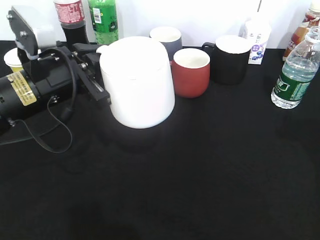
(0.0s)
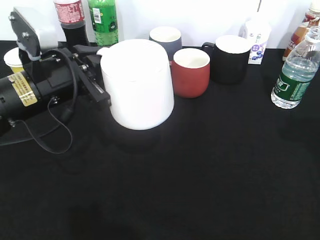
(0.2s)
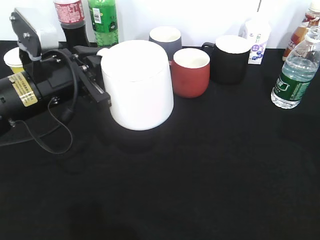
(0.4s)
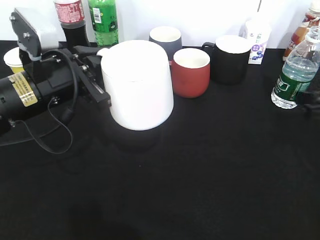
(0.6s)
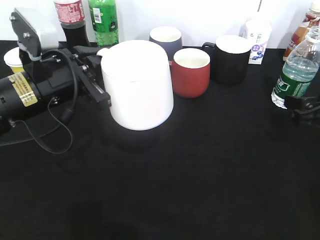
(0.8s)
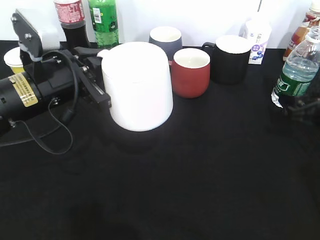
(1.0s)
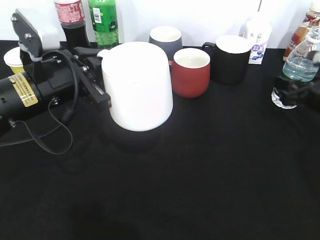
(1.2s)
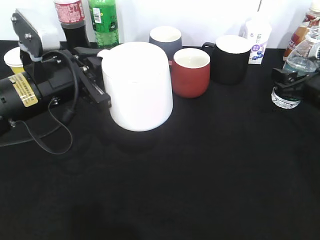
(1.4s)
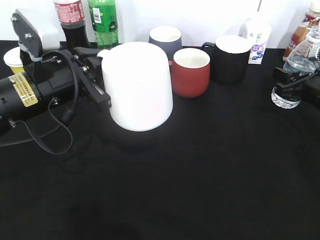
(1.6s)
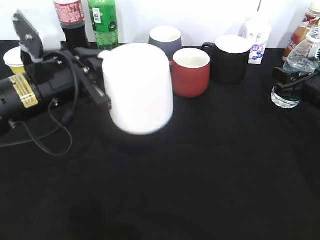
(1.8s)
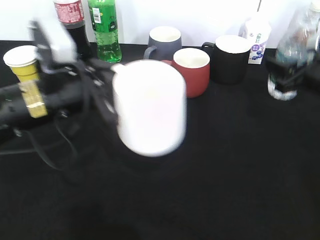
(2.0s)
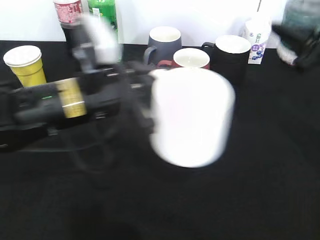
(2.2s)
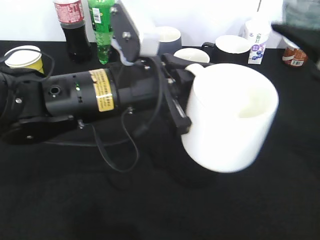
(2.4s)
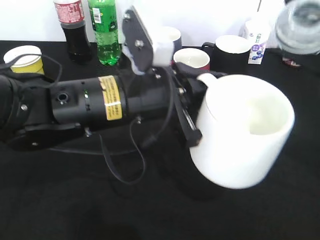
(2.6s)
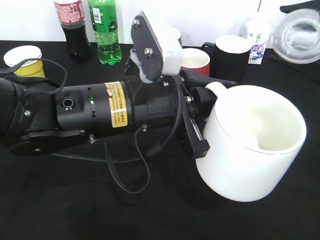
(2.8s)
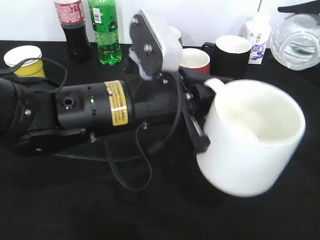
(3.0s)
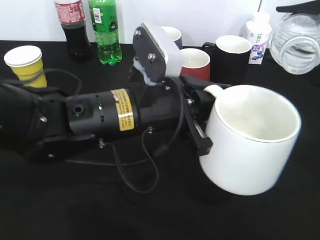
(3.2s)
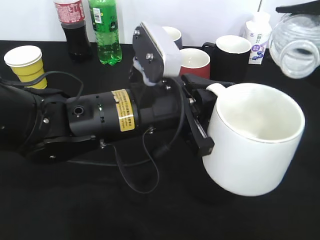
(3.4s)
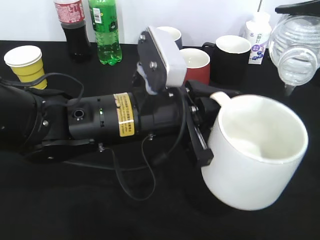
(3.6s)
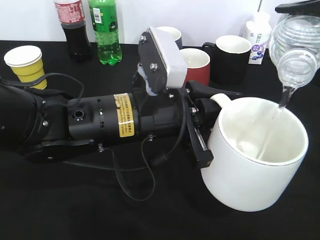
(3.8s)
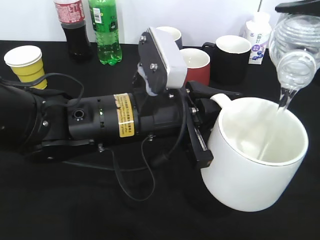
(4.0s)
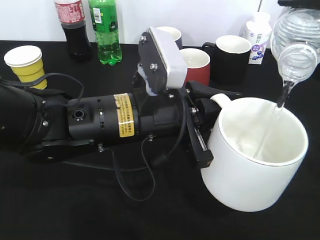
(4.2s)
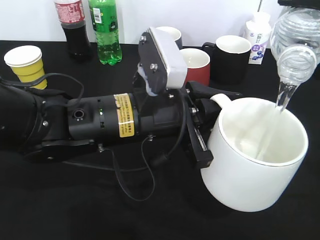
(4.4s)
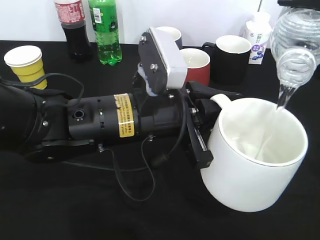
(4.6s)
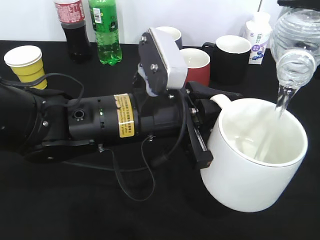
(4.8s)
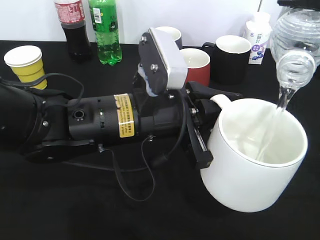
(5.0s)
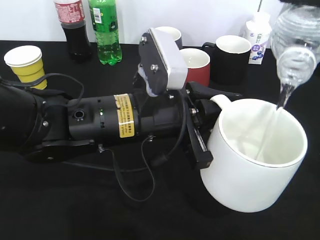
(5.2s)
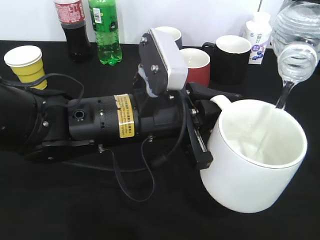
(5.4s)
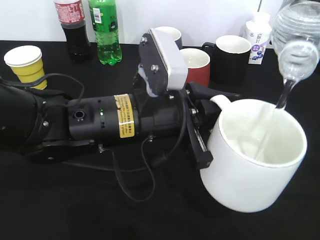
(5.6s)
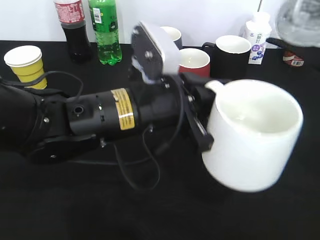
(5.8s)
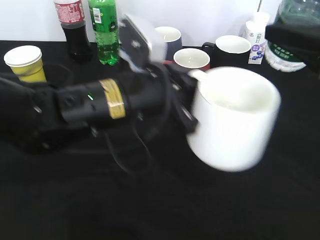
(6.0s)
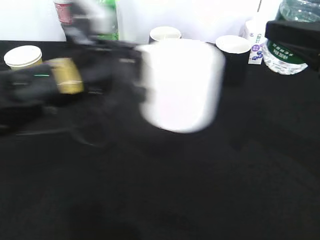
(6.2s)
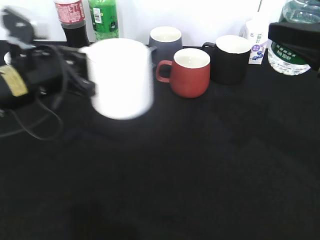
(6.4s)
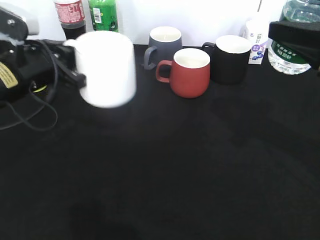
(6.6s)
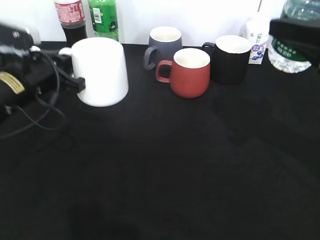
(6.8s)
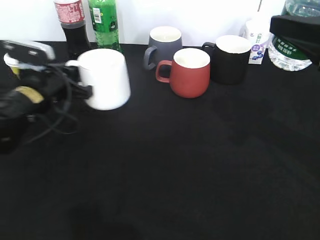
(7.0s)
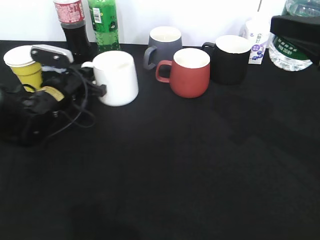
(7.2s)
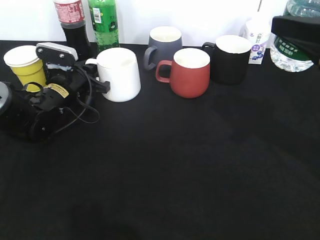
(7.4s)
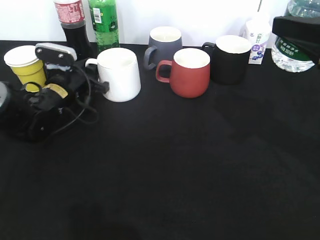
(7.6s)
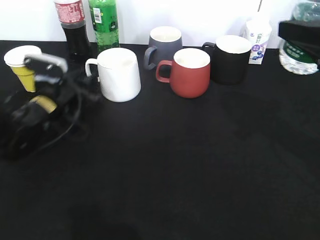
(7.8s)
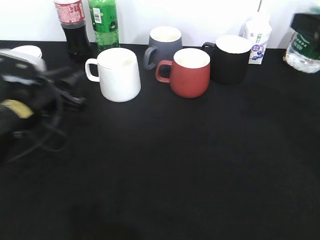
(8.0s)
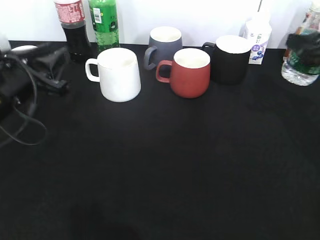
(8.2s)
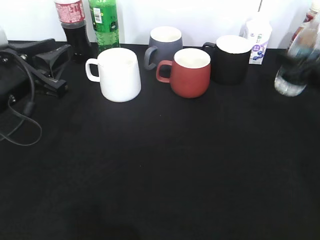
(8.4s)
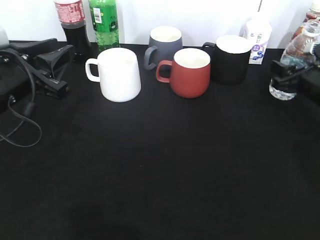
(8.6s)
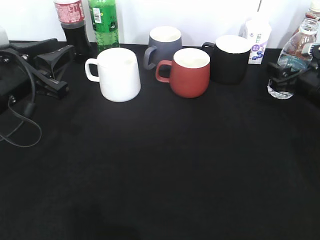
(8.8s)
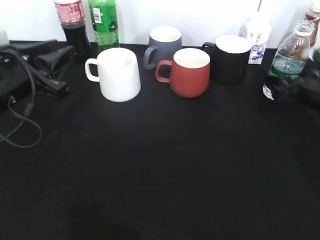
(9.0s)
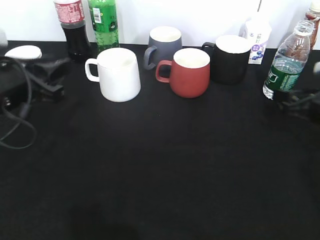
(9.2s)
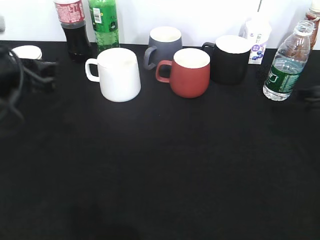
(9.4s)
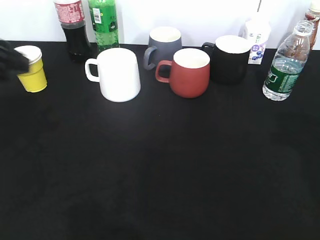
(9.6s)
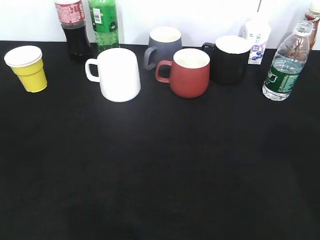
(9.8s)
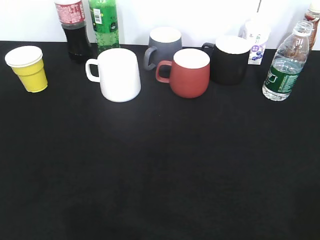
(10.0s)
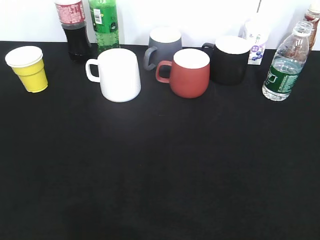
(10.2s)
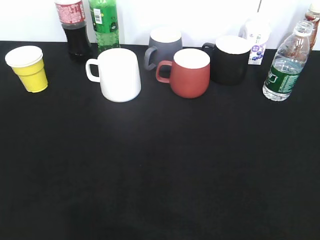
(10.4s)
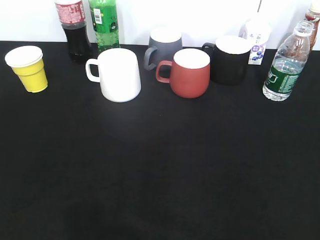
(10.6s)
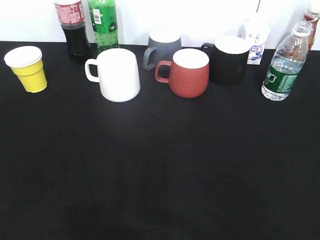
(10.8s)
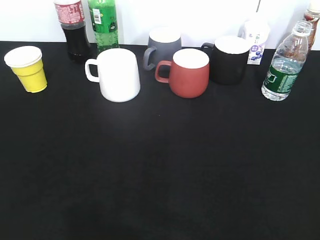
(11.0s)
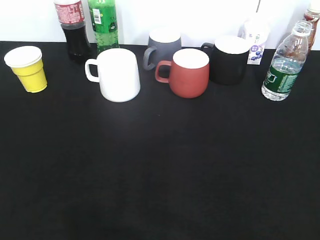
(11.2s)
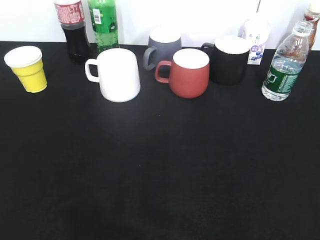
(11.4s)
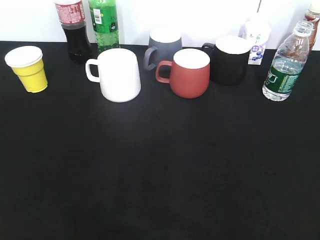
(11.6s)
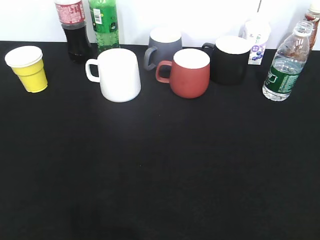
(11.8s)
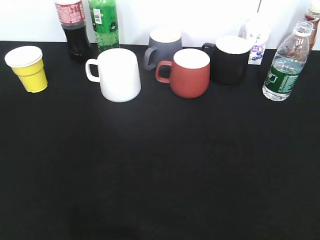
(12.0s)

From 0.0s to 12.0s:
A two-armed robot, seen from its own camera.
Step, from 0.0s to 1.6s: Grasp the bottle with water with right gripper.
Step, from 1.8s to 6.0s: Pour the water from bottle to cup with right gripper.
Step, from 6.2s to 7.8s: Place the white cup on the table with left gripper.
Step, from 8.0s to 9.0s: Place the water bottle on the table with right gripper.
From 0.0s to 1.6s: The right gripper shifts approximately 20 cm downward and forward, and closes up.
From 1.6s to 3.0s: The right gripper heads upward and backward, covering some 20 cm; the left gripper travels to the right and backward by approximately 15 cm.
From 6.0s to 7.6s: The left gripper is displaced forward, to the left and downward by roughly 25 cm, and opens up.
From 7.6s to 9.0s: The right gripper travels downward and forward by roughly 20 cm, and opens. The left gripper is displaced backward and upward by about 15 cm.
From 9.0s to 10.4s: The left gripper shifts roughly 25 cm backward and to the left, while the right gripper is displaced backward and upward by approximately 40 cm.

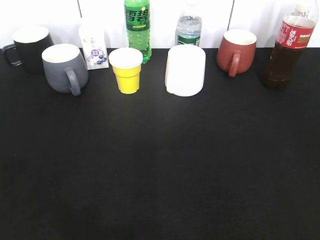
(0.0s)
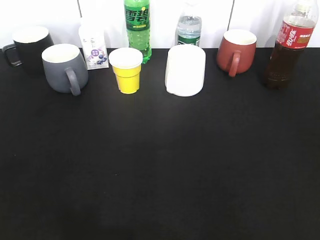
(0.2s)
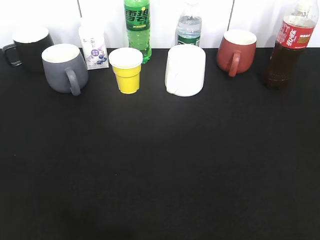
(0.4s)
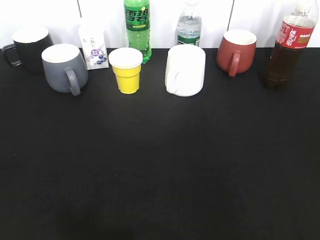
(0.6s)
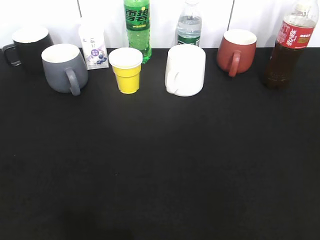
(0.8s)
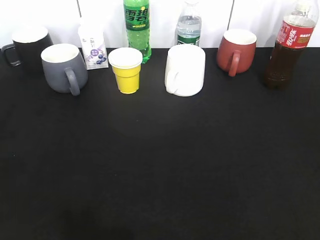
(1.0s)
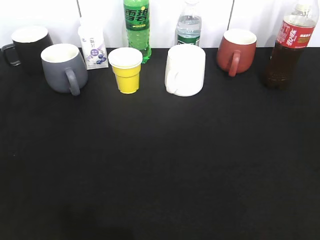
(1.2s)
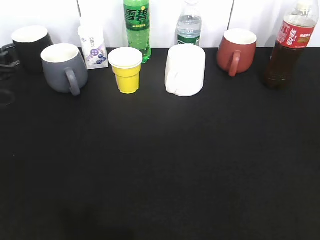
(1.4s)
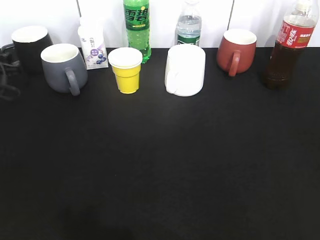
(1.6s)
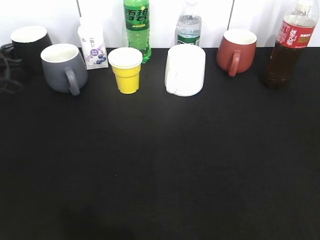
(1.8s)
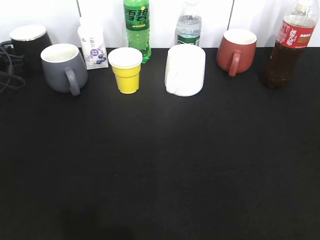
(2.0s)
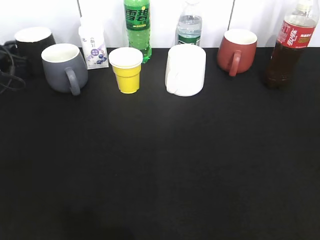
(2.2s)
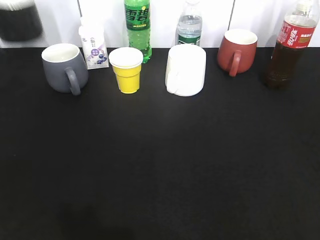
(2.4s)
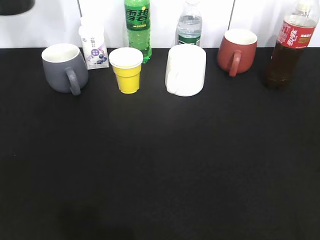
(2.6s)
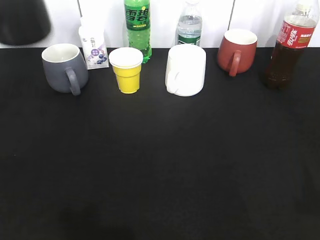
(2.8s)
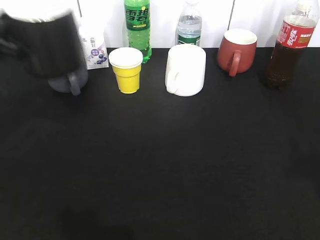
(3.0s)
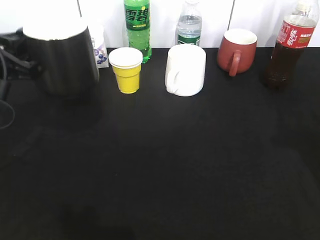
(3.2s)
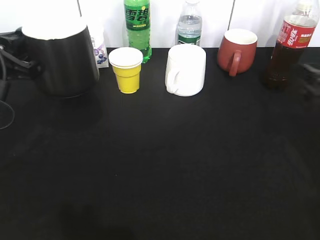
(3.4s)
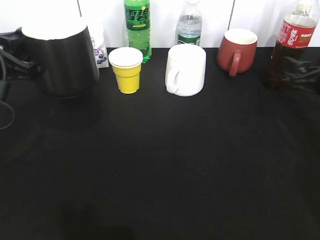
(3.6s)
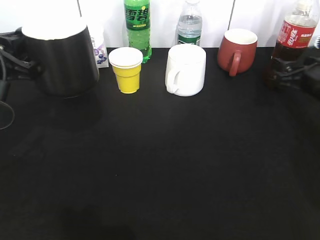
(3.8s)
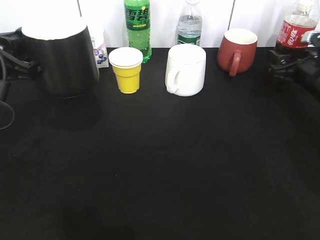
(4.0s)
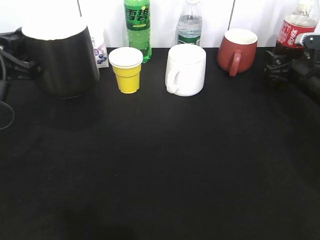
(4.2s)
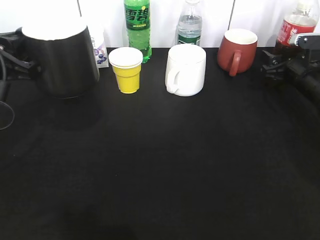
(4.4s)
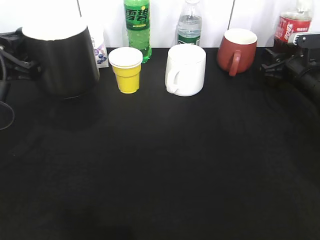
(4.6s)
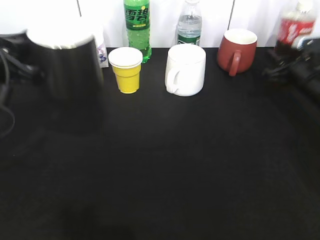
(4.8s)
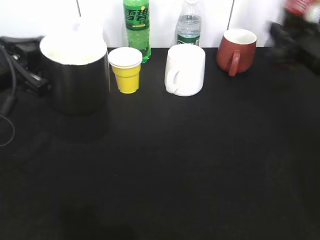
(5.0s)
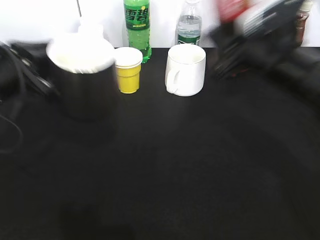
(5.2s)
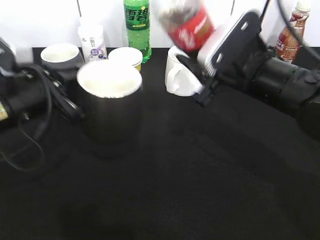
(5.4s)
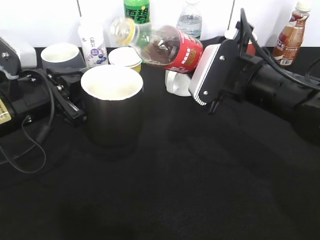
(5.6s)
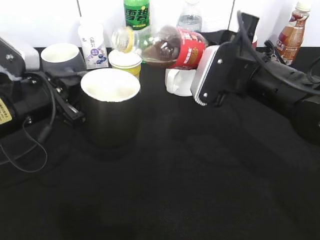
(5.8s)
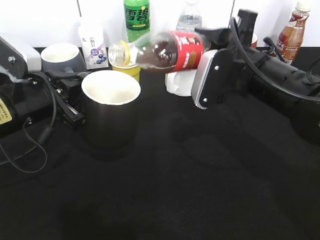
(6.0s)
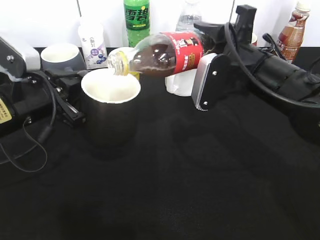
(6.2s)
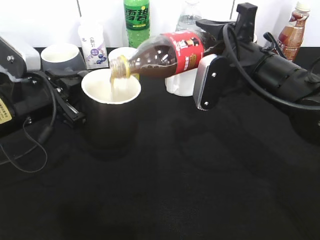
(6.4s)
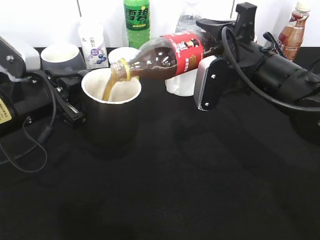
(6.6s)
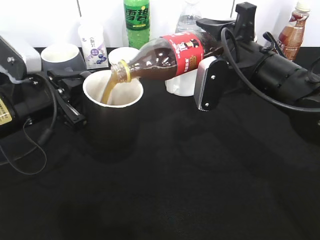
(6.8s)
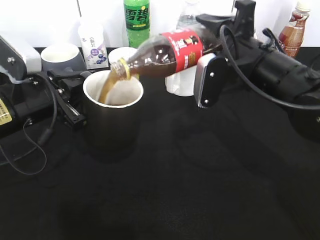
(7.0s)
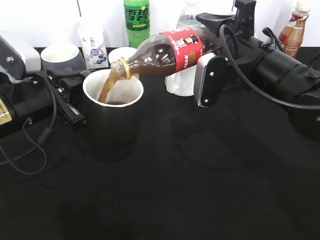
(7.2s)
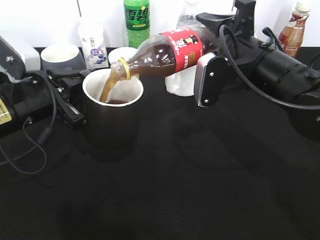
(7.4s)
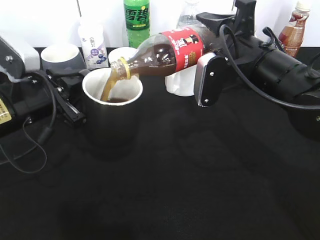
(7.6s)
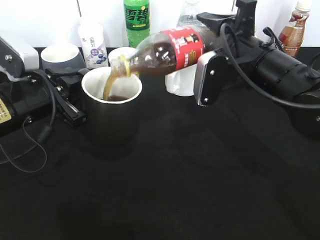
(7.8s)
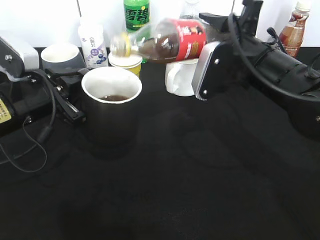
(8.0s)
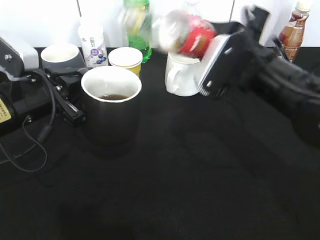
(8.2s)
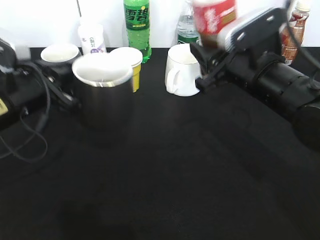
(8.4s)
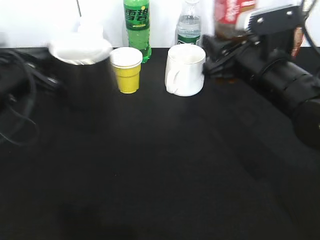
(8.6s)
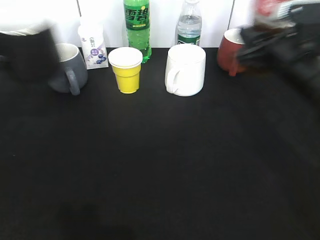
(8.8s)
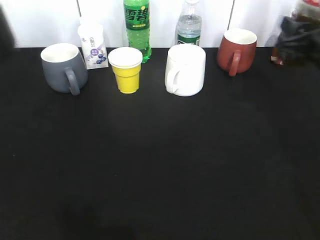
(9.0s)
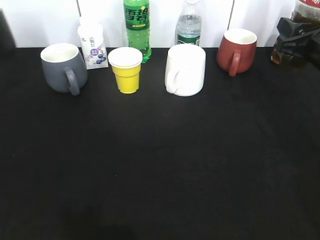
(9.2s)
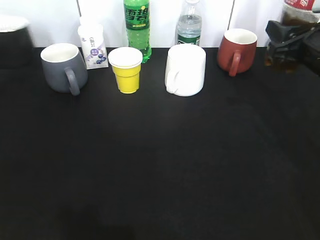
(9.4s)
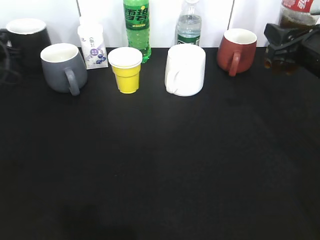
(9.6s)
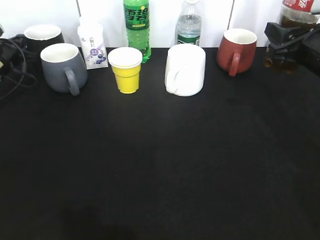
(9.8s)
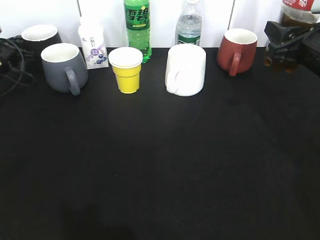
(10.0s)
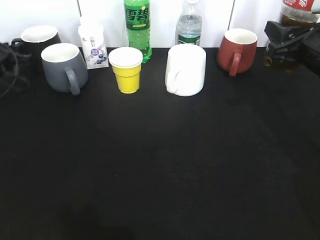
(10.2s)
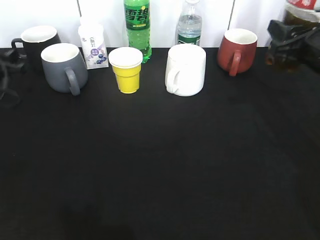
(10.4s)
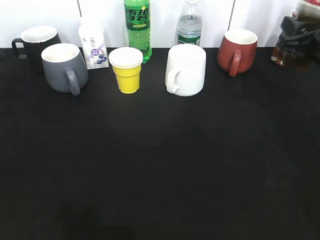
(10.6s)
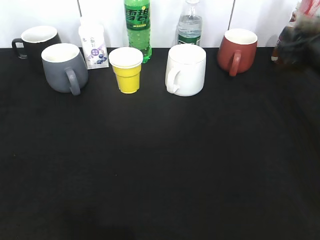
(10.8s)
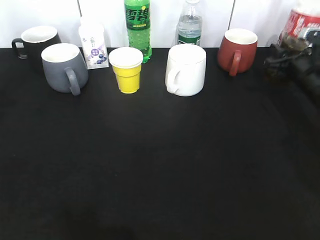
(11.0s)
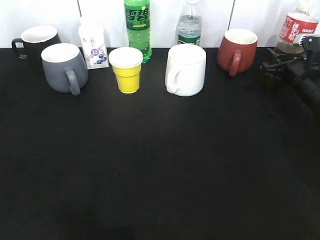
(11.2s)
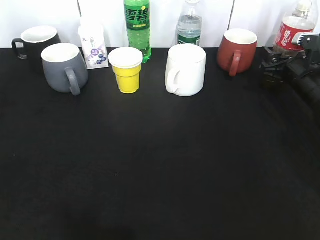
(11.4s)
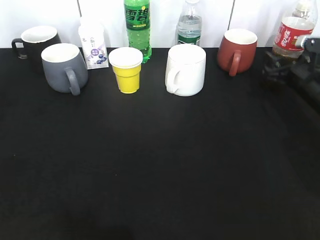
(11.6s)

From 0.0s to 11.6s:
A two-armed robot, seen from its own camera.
Step, from 2.2s to 3.2s: Lift the black cup with left gripper.
Step, from 3.4s to 4.6s: Grasp the bottle with cola with right gripper.
Step, from 4.8s to 8.0s: Pour the cola from bottle to cup with right gripper.
Step, from 8.4s to 10.4s: Place the black cup on the table with left gripper.
From 0.0s to 1.4s: The left gripper heads forward, covering some 40 cm.
From 1.4s to 2.8s: The left gripper shifts about 15 cm upward and backward, and closes. Meanwhile the right gripper is displaced forward by about 5 cm.
From 2.8s to 4.4s: The left gripper is displaced to the right by some 5 cm. Meanwhile the right gripper moves forward and downward, about 40 cm.
From 4.4s to 5.8s: The left gripper heads downward, covering roughly 5 cm; the right gripper heads to the left, backward and upward, covering approximately 20 cm, and closes its fingers.
From 7.2s to 8.8s: The left gripper travels to the left by approximately 10 cm, while the right gripper travels to the right by approximately 5 cm.
From 8.8s to 10.2s: The left gripper moves forward and downward, some 20 cm, and opens its fingers.
From 10.2s to 11.6s: The right gripper shifts about 10 cm downward and forward, and opens its fingers. Meanwhile the left gripper heads backward and upward, covering about 25 cm.
